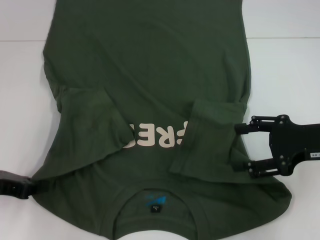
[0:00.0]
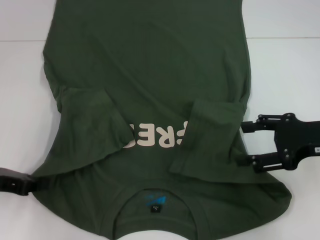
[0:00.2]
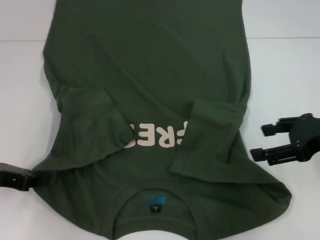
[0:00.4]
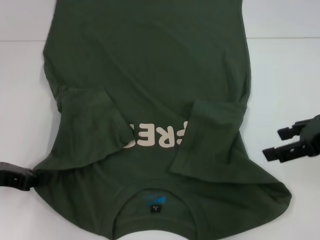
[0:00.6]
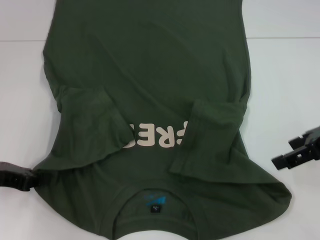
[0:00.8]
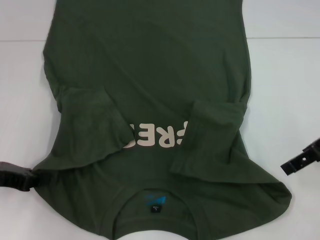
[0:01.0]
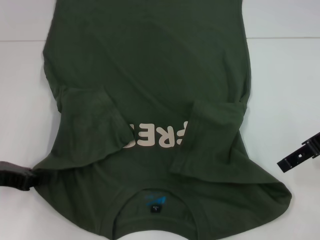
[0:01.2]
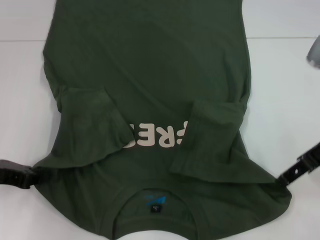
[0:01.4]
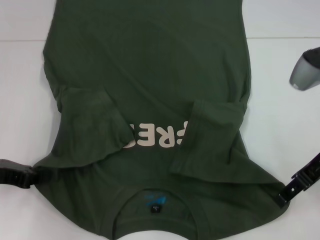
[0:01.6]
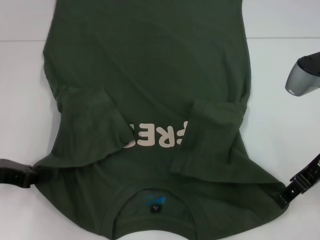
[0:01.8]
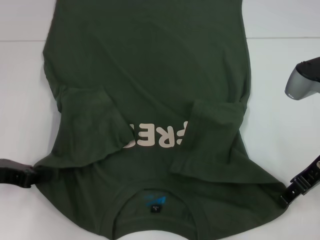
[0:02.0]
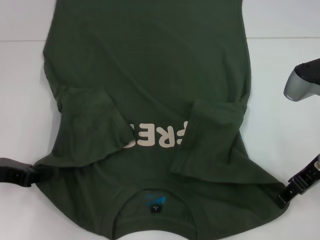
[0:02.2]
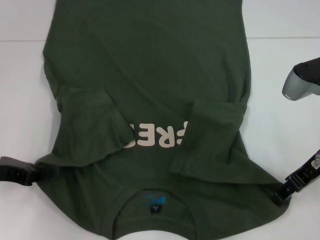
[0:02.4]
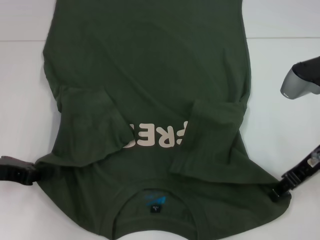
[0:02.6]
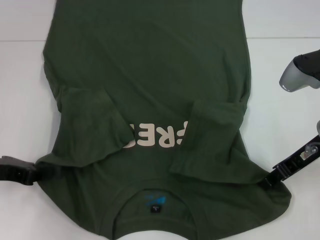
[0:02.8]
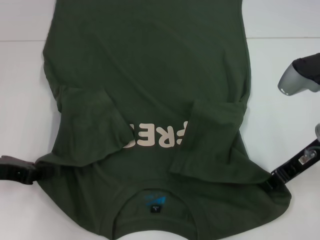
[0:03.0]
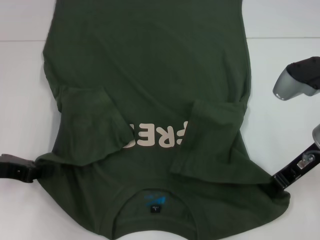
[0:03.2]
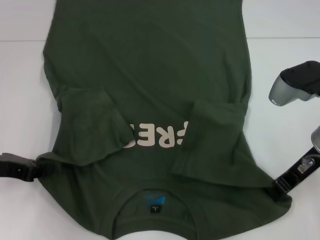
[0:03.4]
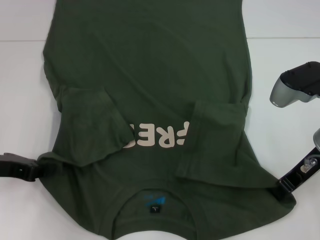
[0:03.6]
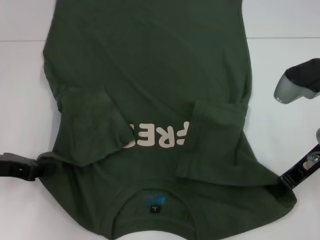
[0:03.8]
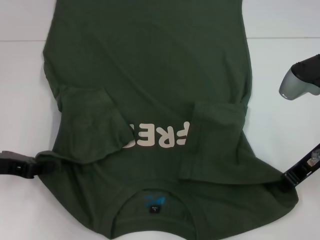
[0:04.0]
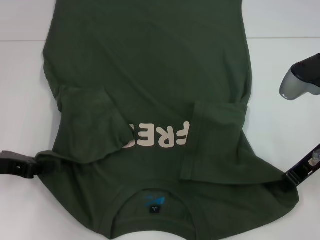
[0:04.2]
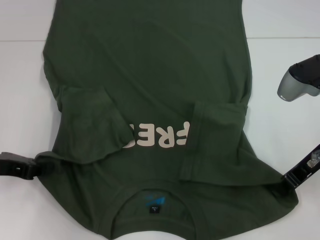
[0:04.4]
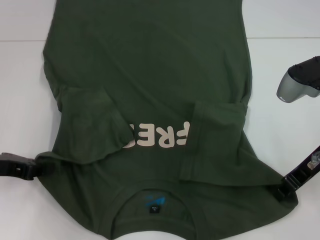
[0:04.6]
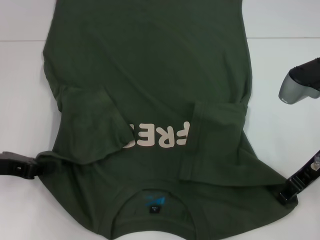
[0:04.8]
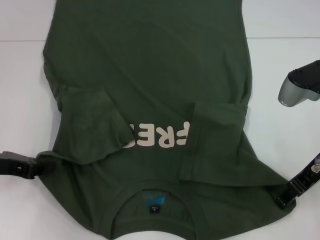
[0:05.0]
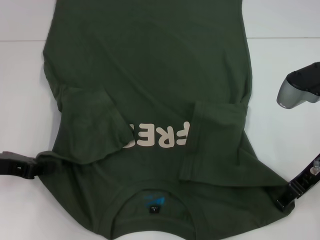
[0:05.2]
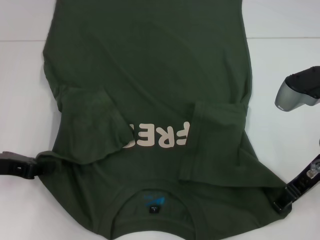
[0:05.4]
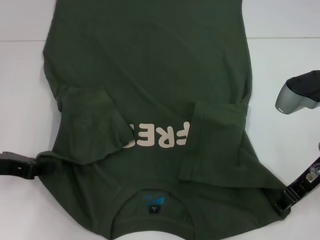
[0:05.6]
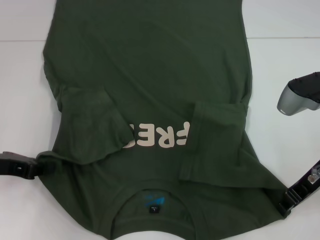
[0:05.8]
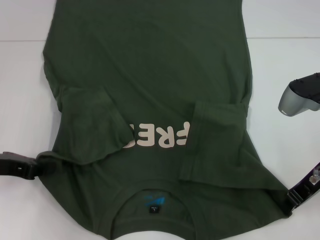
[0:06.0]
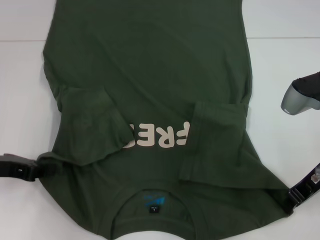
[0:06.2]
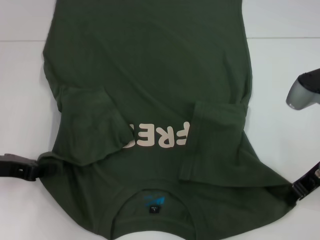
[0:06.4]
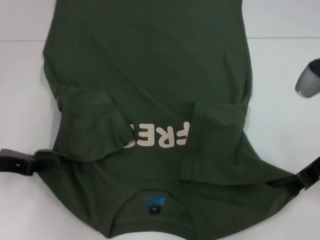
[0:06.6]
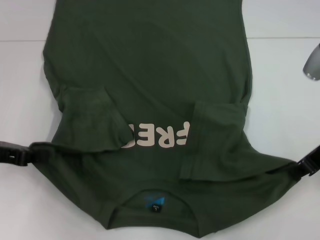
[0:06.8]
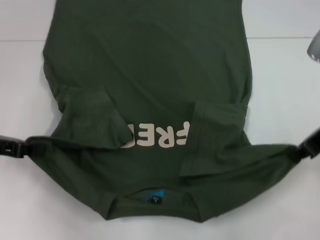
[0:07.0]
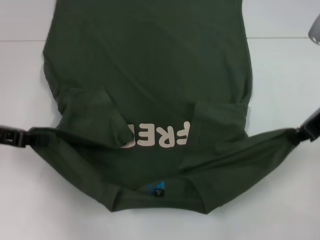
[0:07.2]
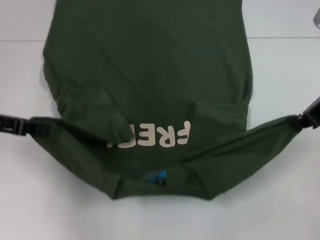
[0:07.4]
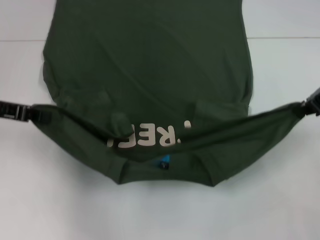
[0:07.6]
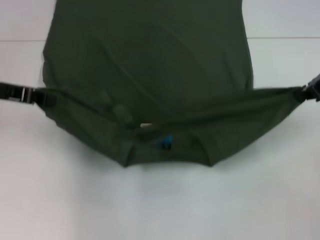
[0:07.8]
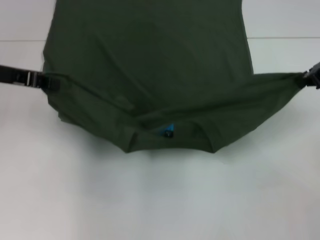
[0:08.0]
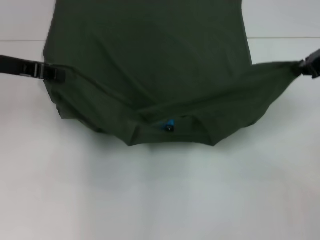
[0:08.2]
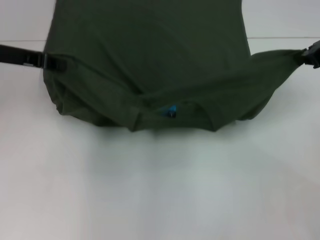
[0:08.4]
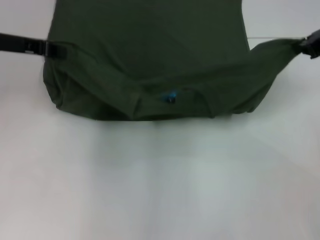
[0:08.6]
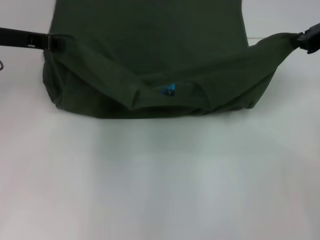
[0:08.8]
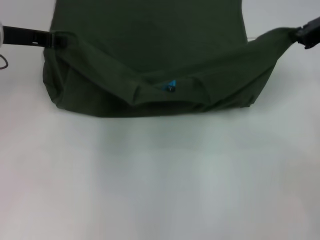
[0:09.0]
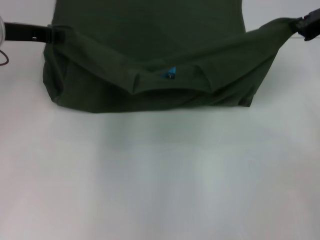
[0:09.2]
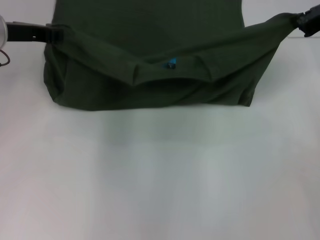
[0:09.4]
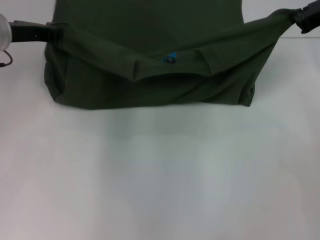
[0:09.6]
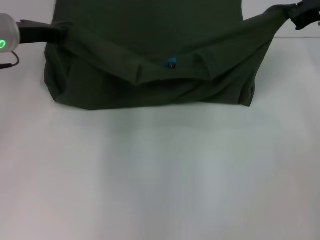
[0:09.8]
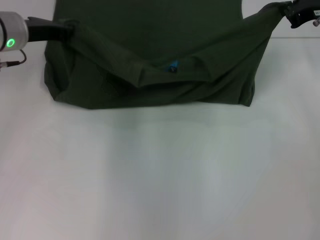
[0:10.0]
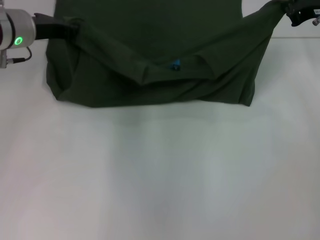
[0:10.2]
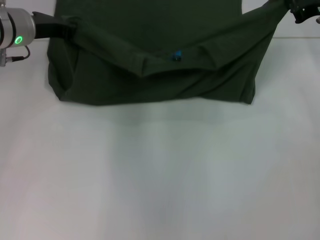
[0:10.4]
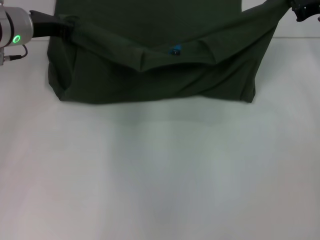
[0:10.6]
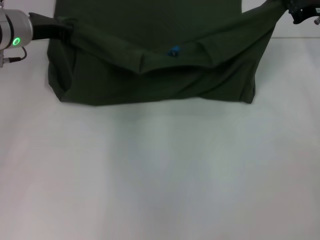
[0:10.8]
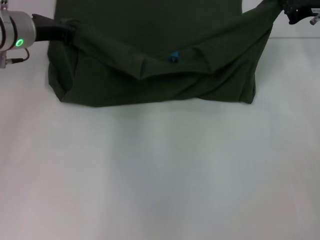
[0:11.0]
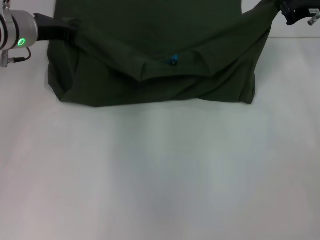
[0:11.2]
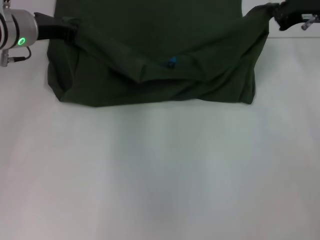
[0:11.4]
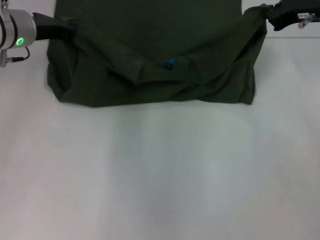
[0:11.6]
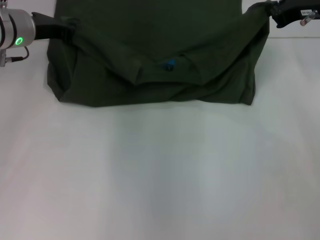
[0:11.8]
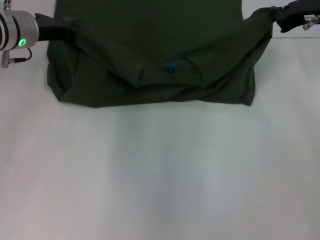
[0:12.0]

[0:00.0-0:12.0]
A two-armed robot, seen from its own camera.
Step, 0:00.0 to 0:06.2: Grab the bottom right corner with your right hand.
0:00.0 to 0:01.6: The right gripper moves about 5 cm.
0:01.6 to 0:03.0: The right gripper closes.
0:03.0 to 0:04.4: The grippers make only small movements.
0:04.4 to 0:06.0: The right gripper opens and closes again.
0:06.0 to 0:07.6: The left gripper travels upward and forward by about 10 cm. Meanwhile the right gripper moves upward, roughly 10 cm.
0:07.6 to 0:09.0: Both grippers travel together forward, about 5 cm.
0:09.0 to 0:10.4: The right gripper changes place by approximately 5 cm. The left gripper ends up about 5 cm from where it was.
0:10.4 to 0:12.0: There are only small adjustments of the grippers.

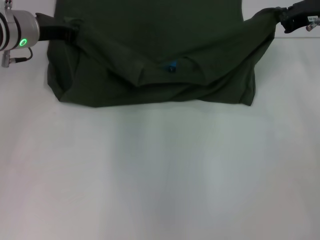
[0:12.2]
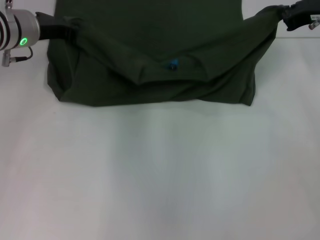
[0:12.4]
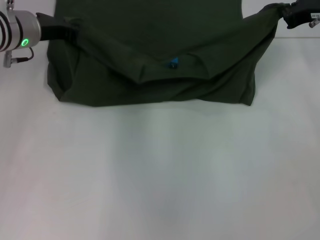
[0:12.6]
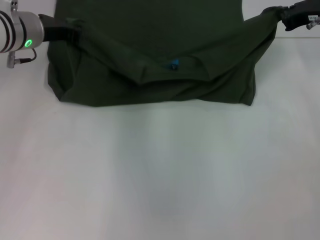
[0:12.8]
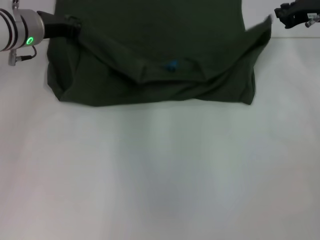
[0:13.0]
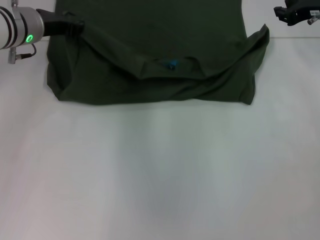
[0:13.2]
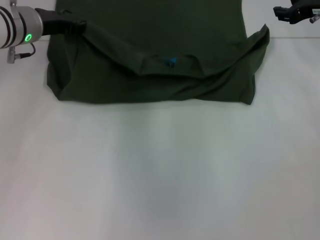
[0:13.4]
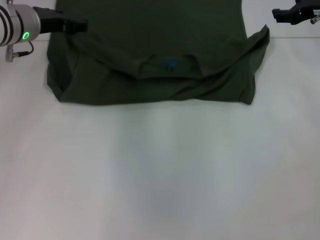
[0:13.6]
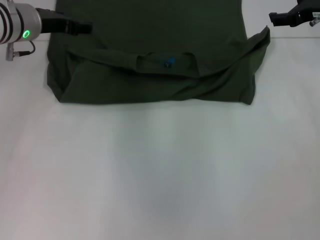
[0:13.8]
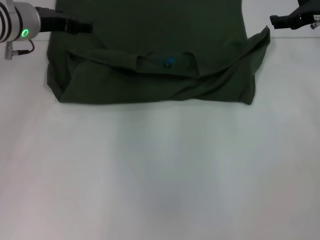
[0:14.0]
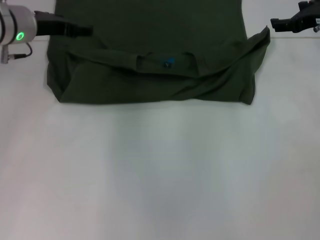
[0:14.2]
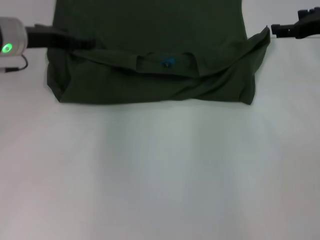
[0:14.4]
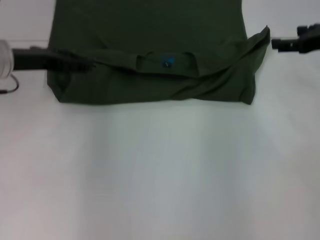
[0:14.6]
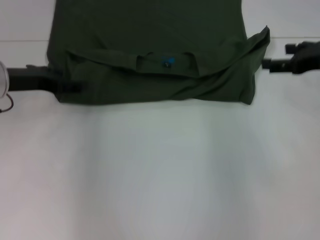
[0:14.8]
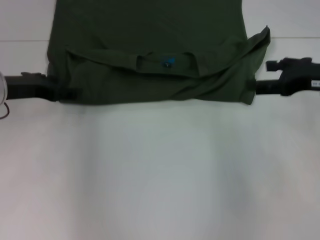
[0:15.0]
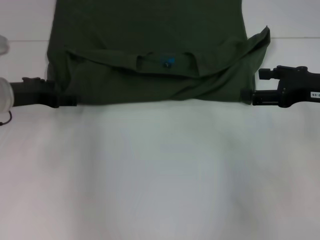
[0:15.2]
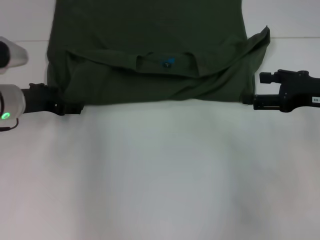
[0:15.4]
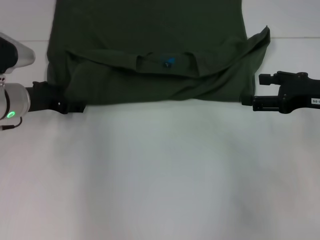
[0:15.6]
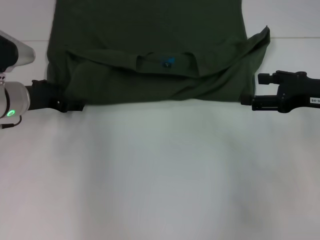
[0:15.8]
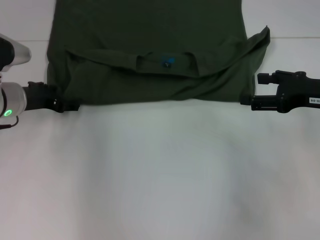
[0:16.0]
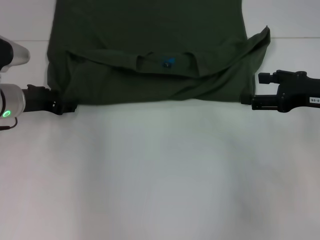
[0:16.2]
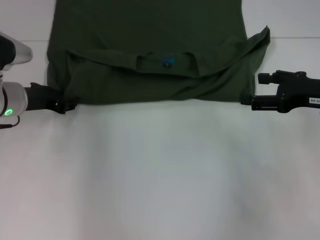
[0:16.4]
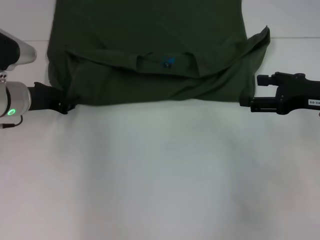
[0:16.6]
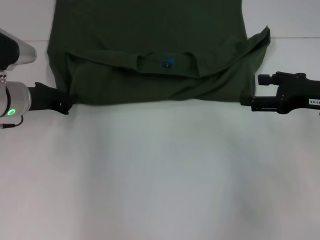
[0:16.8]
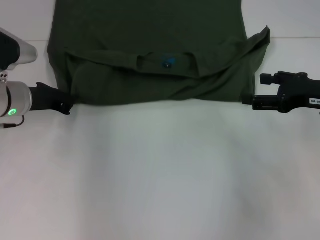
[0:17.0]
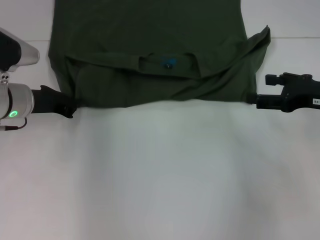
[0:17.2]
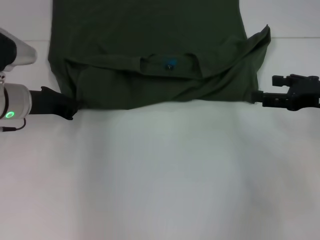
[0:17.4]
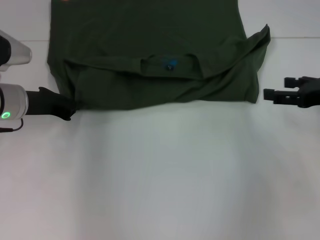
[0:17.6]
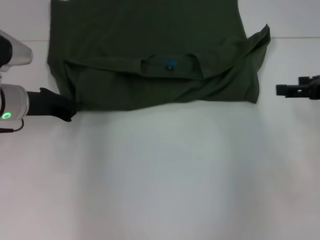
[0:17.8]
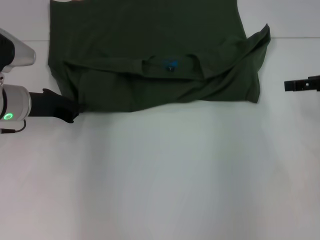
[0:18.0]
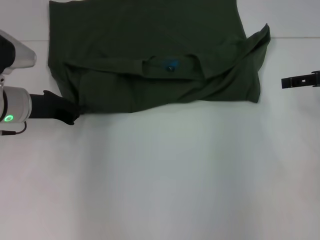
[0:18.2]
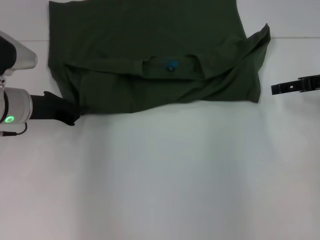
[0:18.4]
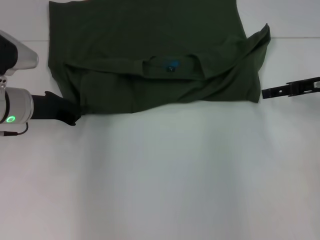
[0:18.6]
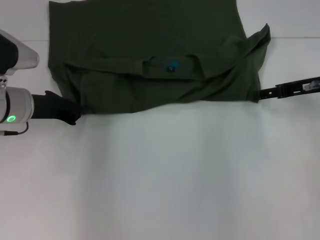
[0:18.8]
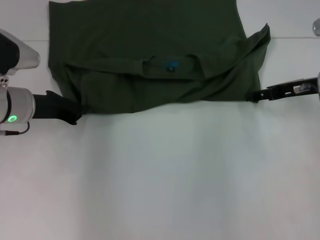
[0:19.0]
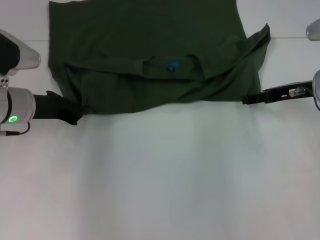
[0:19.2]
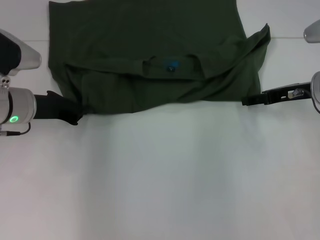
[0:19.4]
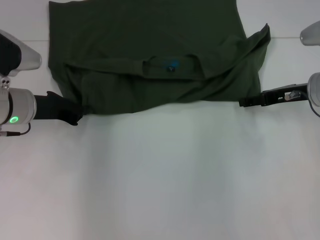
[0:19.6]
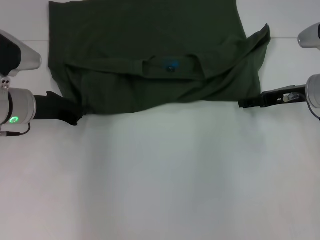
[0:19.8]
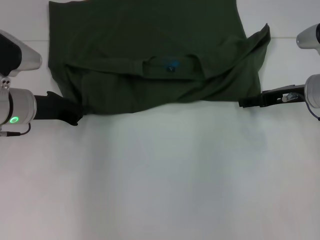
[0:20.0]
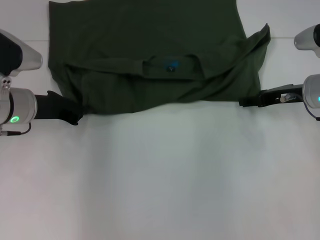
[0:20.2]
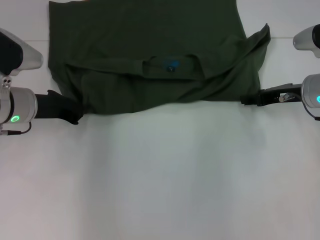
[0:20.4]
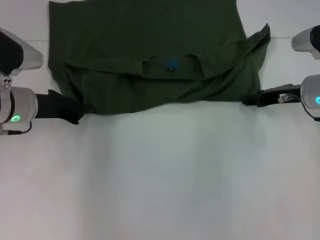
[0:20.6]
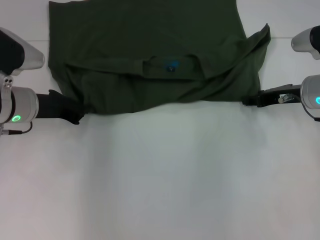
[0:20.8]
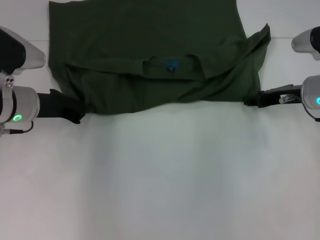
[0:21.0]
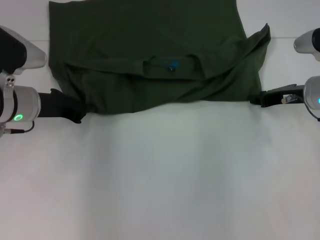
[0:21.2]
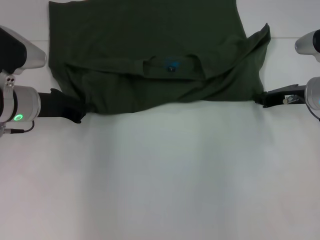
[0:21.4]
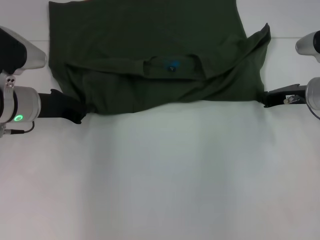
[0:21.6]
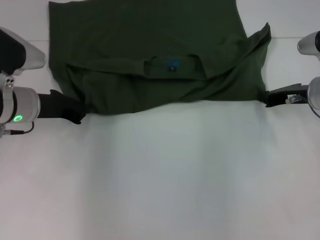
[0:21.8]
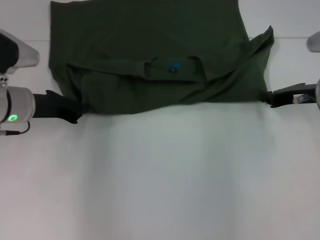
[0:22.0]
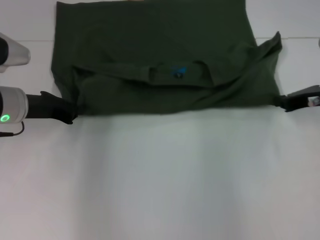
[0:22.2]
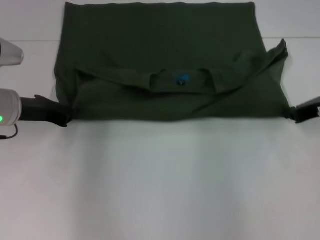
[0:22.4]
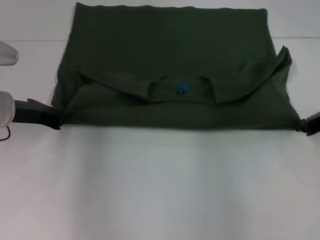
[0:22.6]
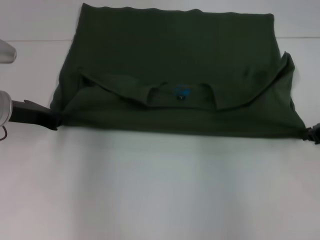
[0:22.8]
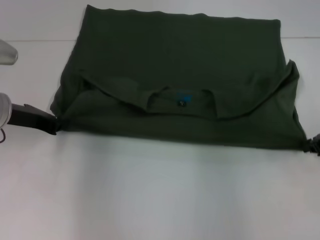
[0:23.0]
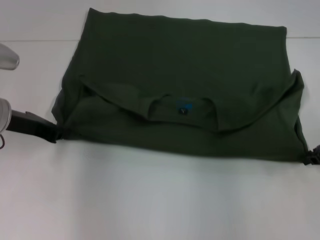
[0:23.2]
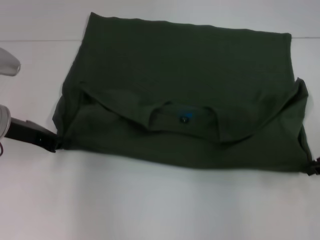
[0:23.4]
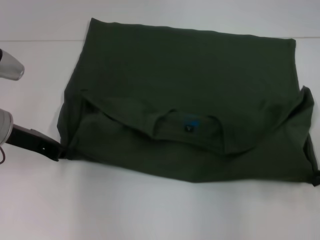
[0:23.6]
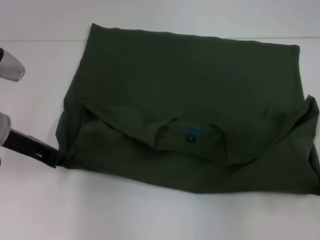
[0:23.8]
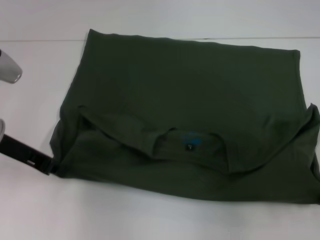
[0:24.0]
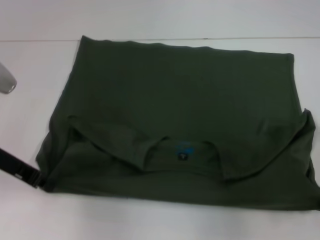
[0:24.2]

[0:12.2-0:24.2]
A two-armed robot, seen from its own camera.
0:12.2 to 0:13.8: The left gripper opens. The right gripper opens its fingers.
0:13.8 to 0:15.2: The right gripper travels backward by roughly 15 cm. Meanwhile the left gripper is displaced backward, downward and to the left by about 10 cm.
0:15.2 to 0:16.6: The left gripper closes its fingers.
0:16.6 to 0:18.2: The right gripper ends up roughly 5 cm from where it was; the left gripper closes its fingers.
0:18.2 to 0:19.8: The right gripper is displaced downward and to the left by some 10 cm.
0:19.8 to 0:21.2: The right gripper closes.
0:21.2 to 0:22.6: The right gripper shifts by roughly 5 cm, and closes.
0:22.6 to 0:24.2: The right gripper heads backward, covering roughly 10 cm, while the left gripper changes place by some 5 cm.
